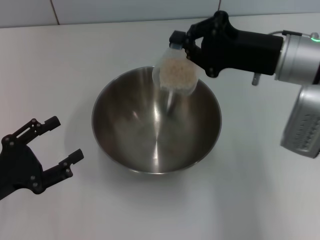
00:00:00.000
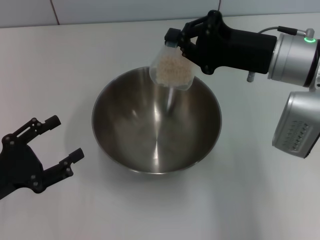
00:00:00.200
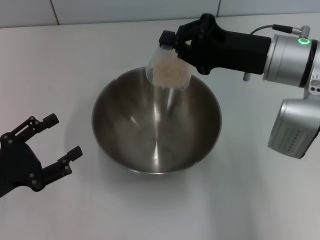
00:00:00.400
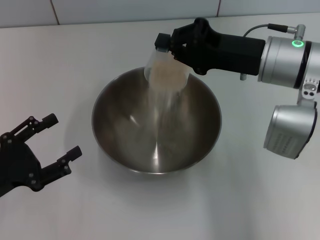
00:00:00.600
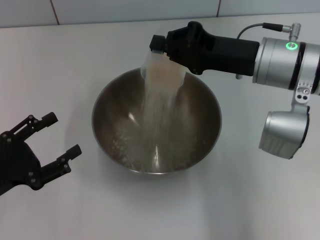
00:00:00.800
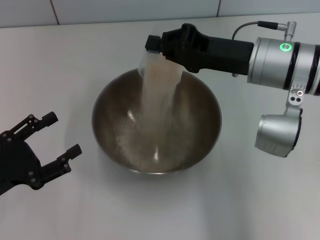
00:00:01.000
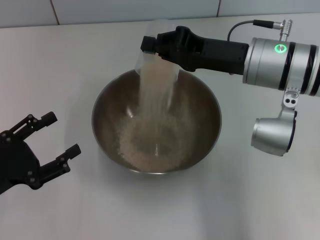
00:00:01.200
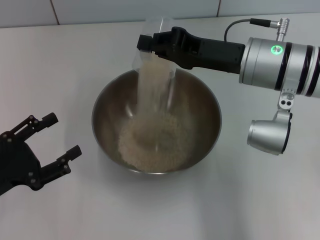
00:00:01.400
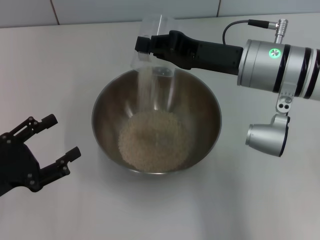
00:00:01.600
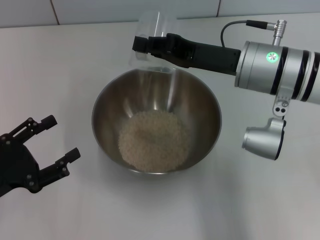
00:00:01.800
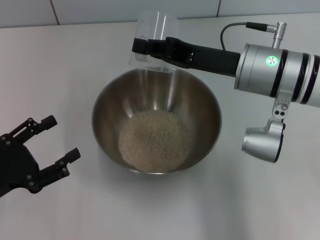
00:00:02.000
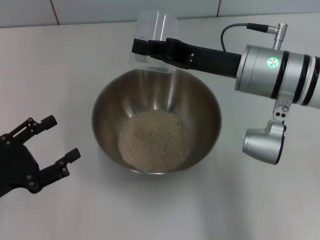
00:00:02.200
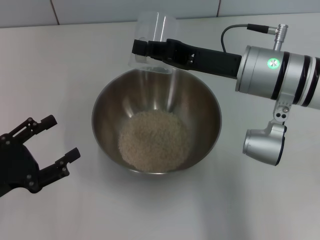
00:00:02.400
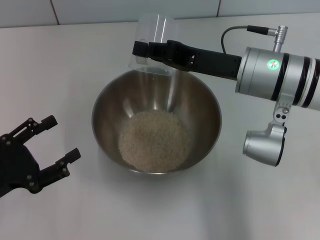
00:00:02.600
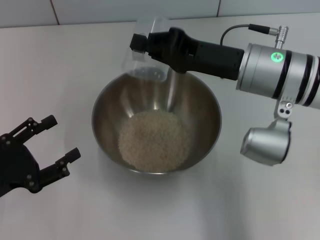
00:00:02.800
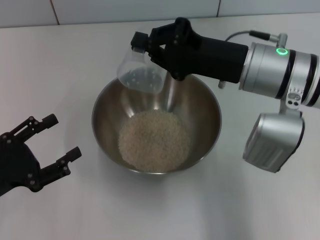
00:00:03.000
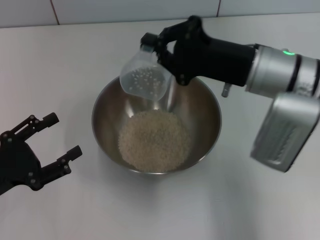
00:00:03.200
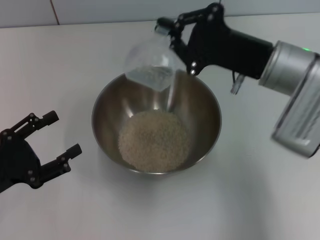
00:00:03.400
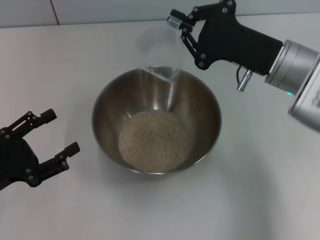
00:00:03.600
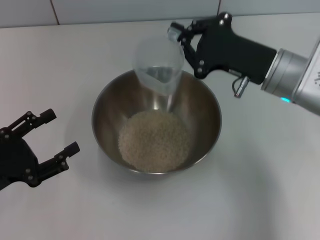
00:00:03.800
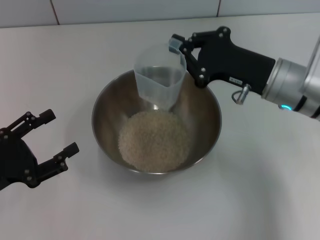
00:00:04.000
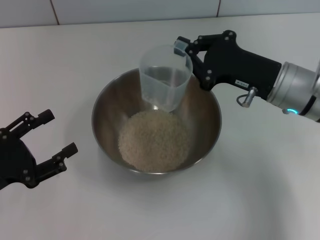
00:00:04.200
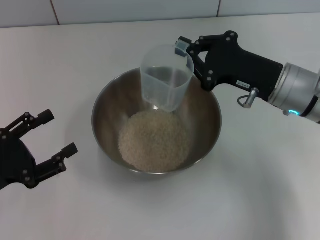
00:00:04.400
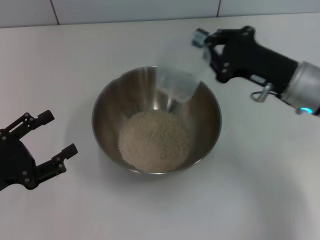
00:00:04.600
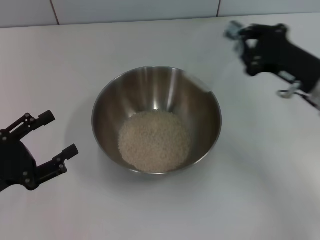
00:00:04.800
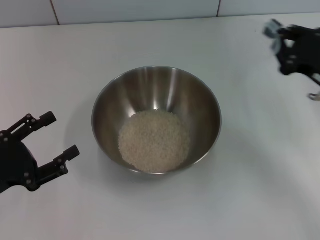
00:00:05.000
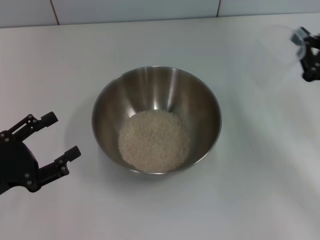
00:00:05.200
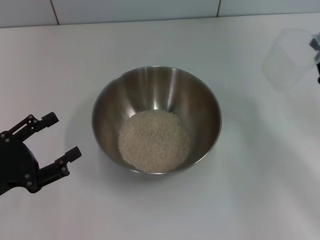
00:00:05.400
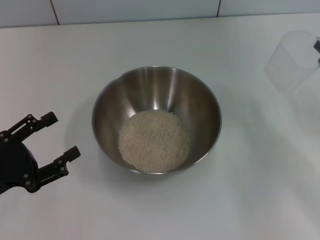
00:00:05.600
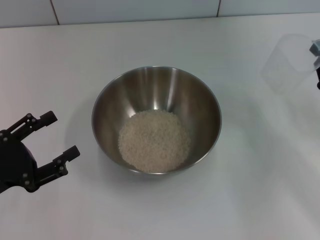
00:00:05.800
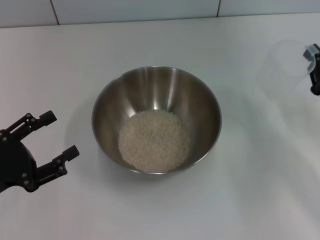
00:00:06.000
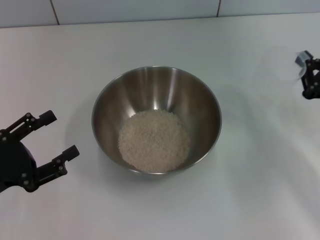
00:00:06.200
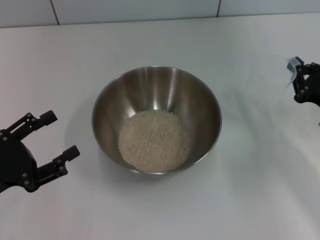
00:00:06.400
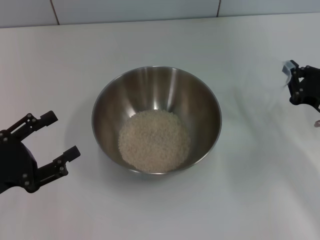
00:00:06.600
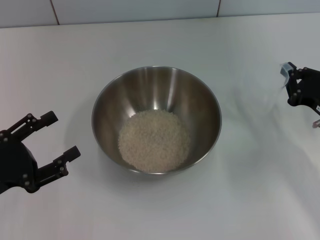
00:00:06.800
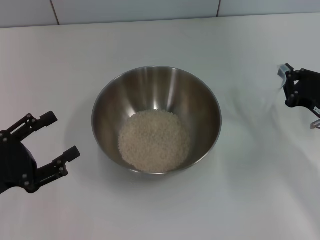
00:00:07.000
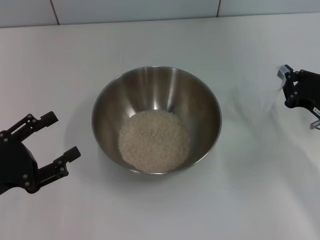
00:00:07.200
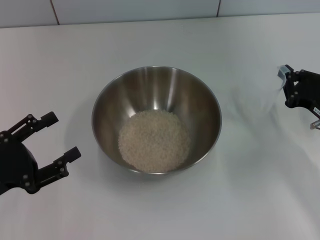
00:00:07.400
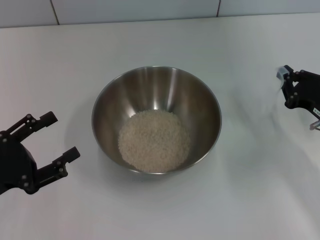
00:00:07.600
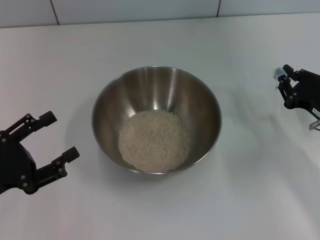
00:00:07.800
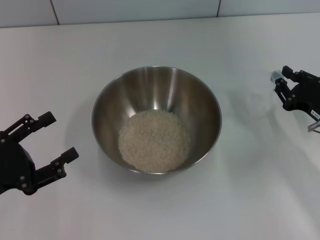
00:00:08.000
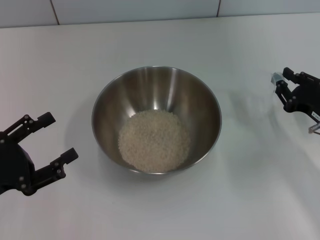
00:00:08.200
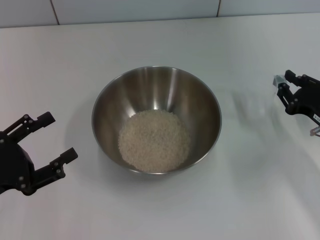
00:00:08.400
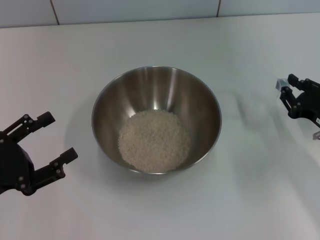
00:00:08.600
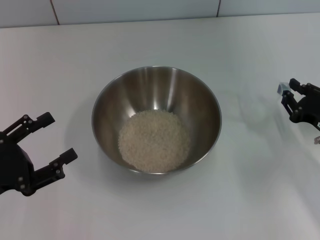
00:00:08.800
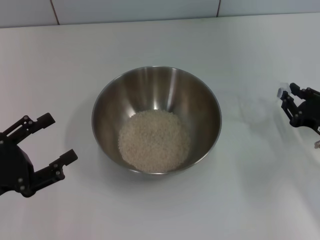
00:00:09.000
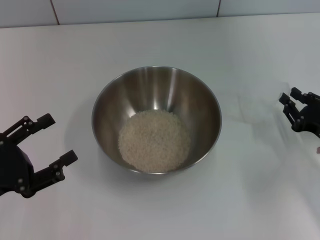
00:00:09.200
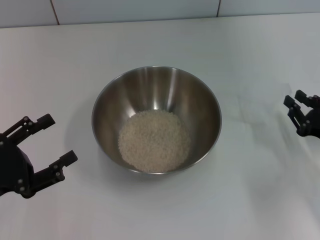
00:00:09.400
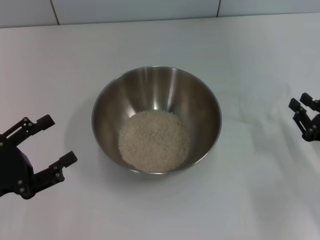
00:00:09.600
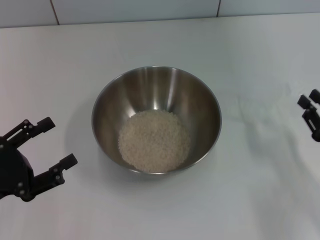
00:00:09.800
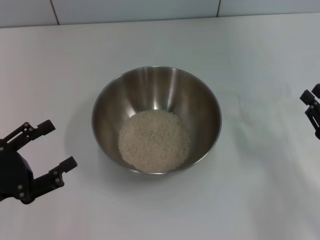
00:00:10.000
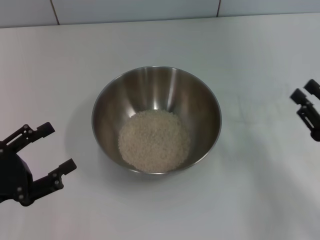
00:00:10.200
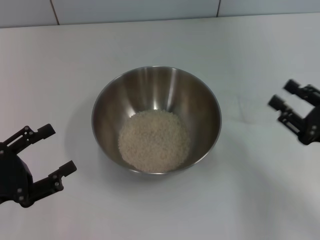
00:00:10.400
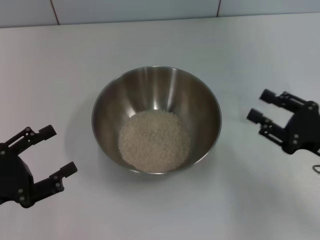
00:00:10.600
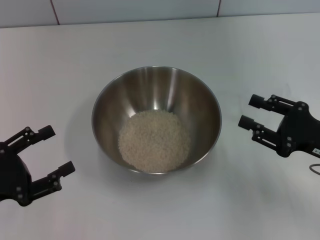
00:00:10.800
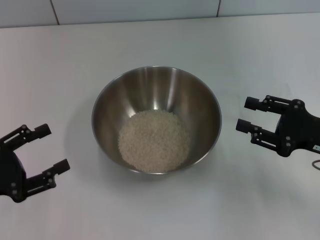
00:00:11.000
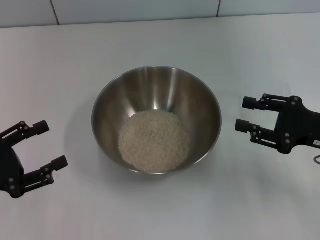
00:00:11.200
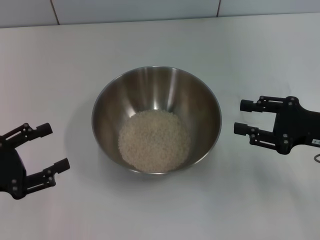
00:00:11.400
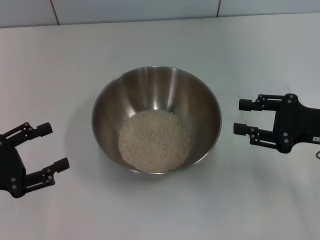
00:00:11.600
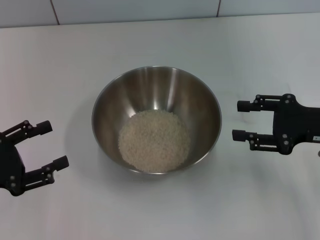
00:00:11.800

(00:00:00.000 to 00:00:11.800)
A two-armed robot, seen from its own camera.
Task of the whole recording: Place the bowl in the middle of the table with one hand and pour the rice from the grain cup into it with the other hand.
Step, 00:00:00.000 - 00:00:05.000: Pour the rice from the cup into the bowl with the right gripper.
Step, 00:00:05.200 - 00:00:09.400: Place the cup on the table with the right gripper.
00:00:03.000 - 00:00:04.400: The right gripper ends up about 5 cm from where it was.
00:00:04.400 - 00:00:06.000: The right gripper shifts about 15 cm to the right, backward and downward.
00:00:06.000 - 00:00:08.800: The grippers move only a little.
00:00:08.800 - 00:00:10.400: The right gripper shifts by some 5 cm.
00:00:10.400 - 00:00:11.800: The right gripper goes some 10 cm forward and upward.

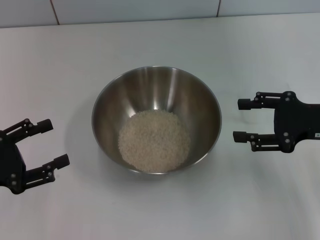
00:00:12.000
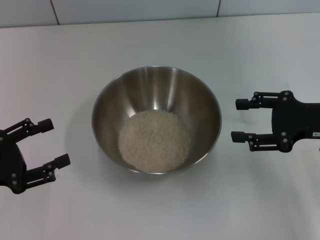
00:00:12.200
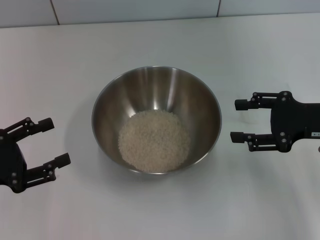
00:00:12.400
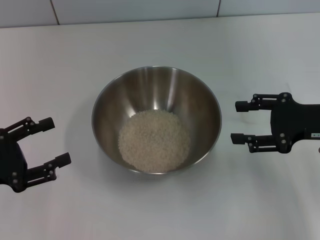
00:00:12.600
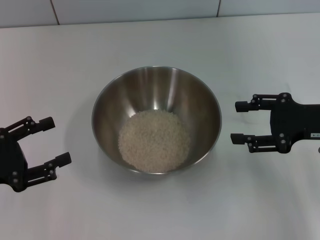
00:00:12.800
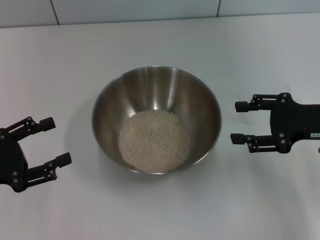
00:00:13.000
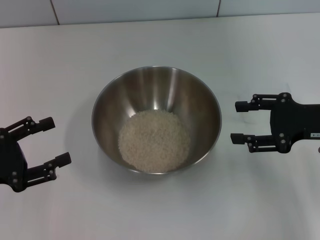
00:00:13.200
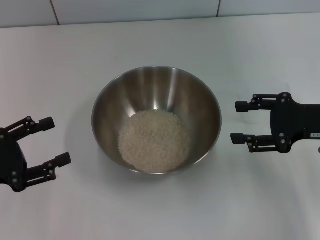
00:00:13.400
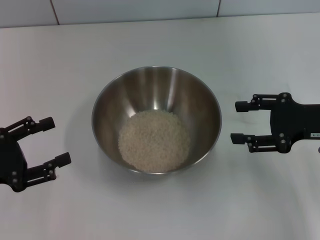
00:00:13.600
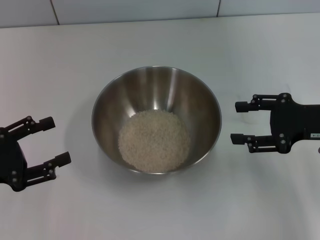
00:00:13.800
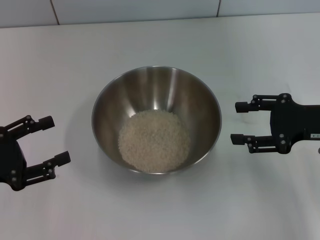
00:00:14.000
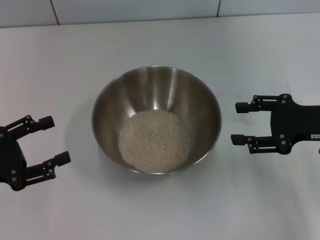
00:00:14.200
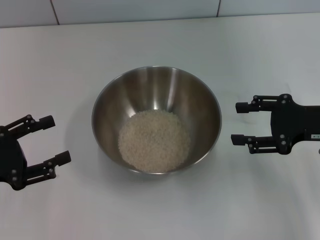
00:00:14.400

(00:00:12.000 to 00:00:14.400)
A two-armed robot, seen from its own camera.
Task of the whole recording: Place the bowl in the middle of the table with one hand and pour the rice from the grain cup into it with the other hand.
00:00:12.000 - 00:00:14.400: Both grippers stay about where they are.
